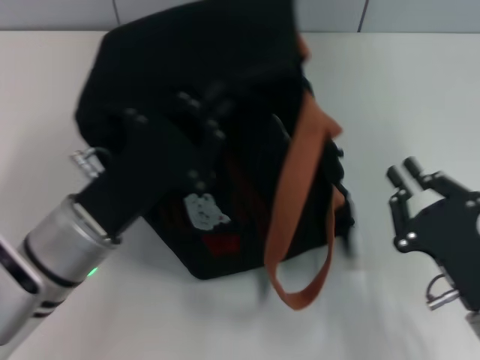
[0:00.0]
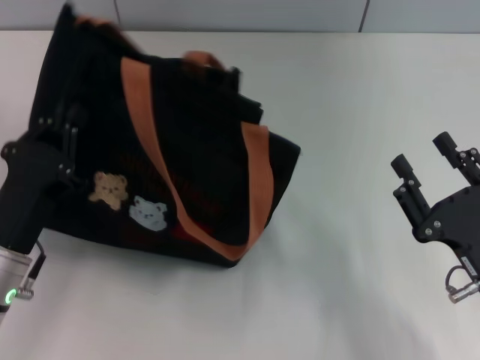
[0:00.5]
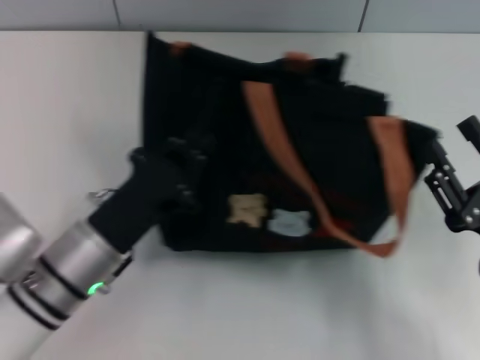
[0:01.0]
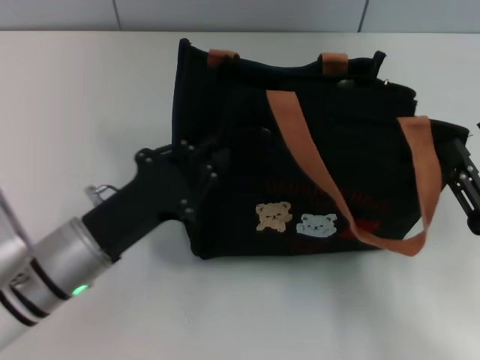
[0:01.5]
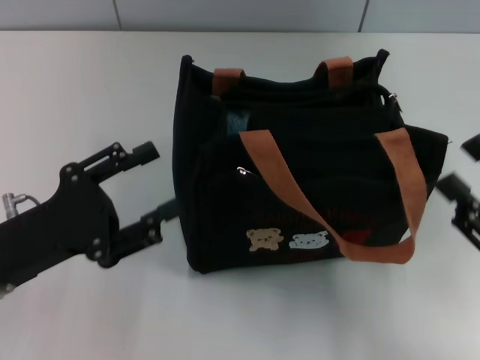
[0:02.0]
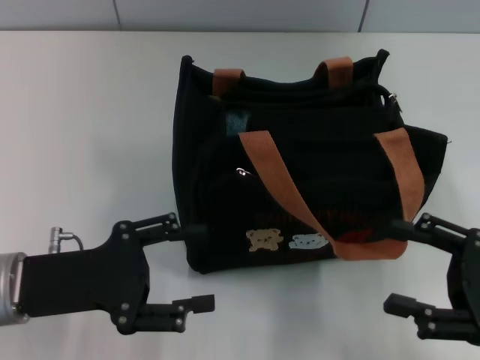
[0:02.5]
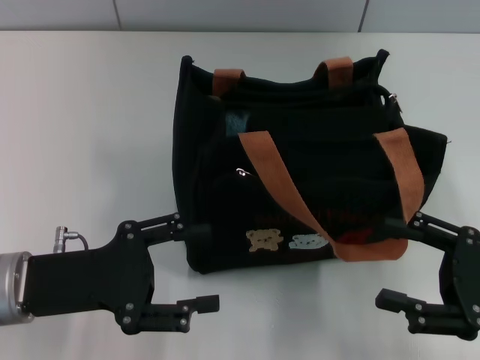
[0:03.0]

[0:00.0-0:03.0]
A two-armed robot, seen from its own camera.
Step, 0:00.0 to 0:01.5: Grab the bag with your left hand.
0:00.0 to 0:01.5: The right gripper moves to the right, roughly 5 cm, and opens up.
0:01.5 to 0:03.0: The left gripper goes some 5 cm to the left, and opens up.

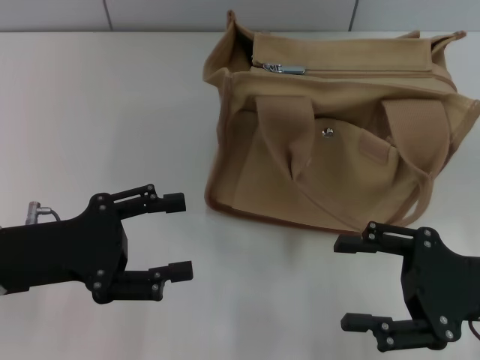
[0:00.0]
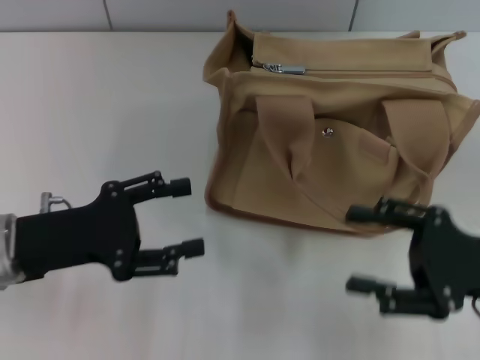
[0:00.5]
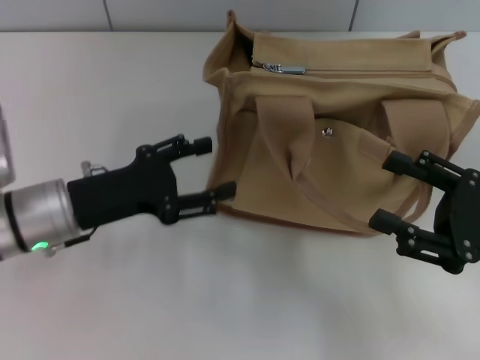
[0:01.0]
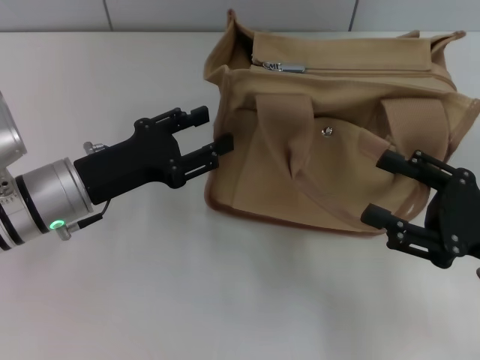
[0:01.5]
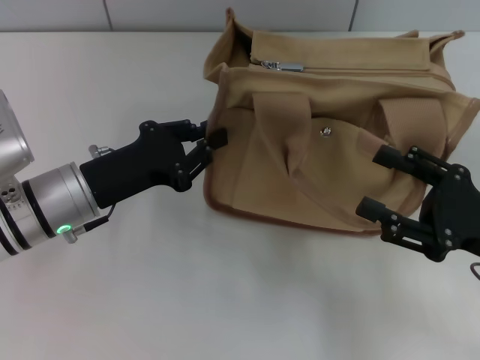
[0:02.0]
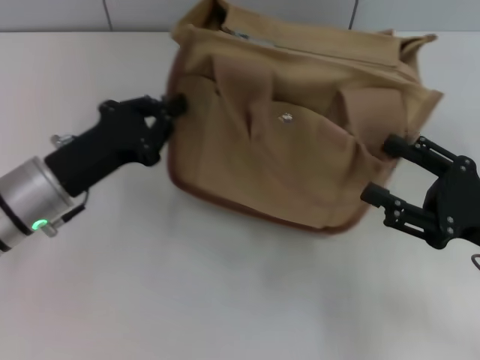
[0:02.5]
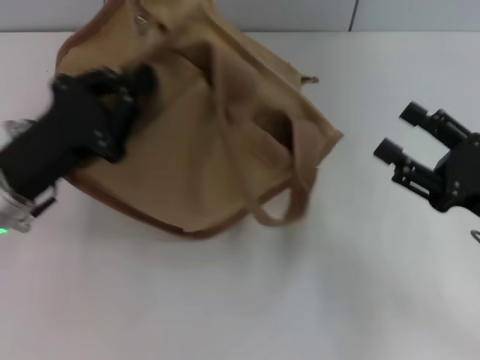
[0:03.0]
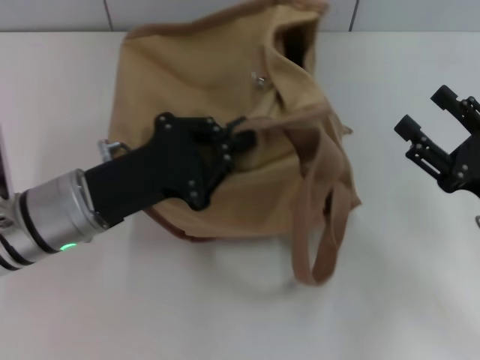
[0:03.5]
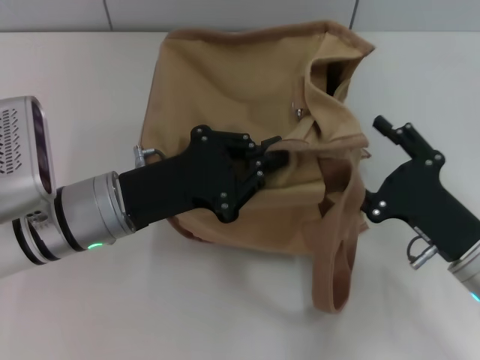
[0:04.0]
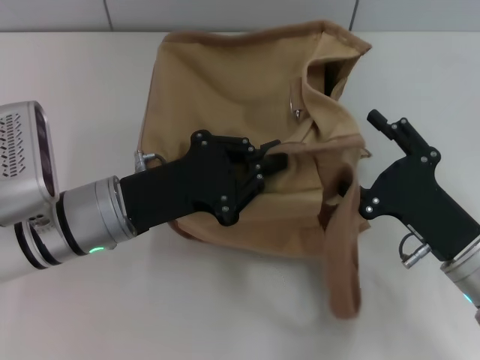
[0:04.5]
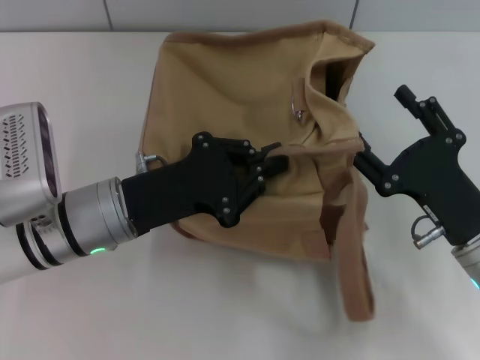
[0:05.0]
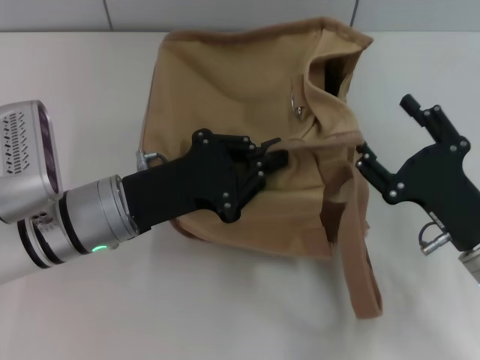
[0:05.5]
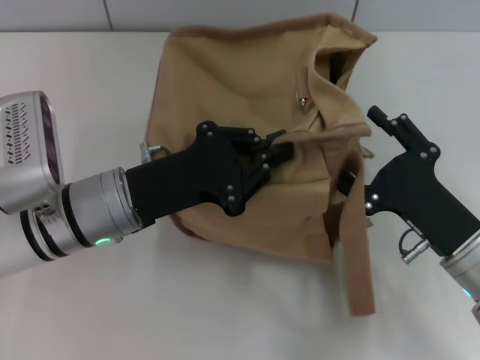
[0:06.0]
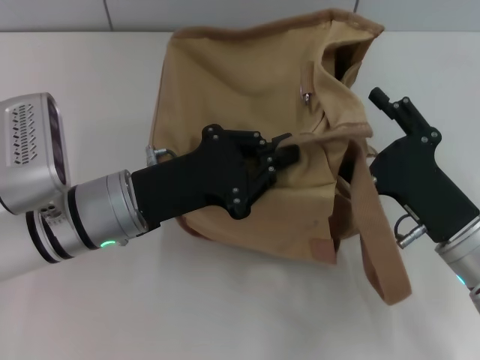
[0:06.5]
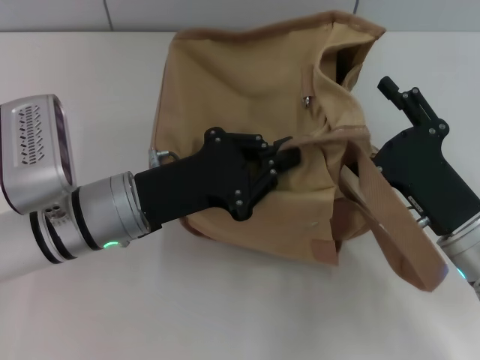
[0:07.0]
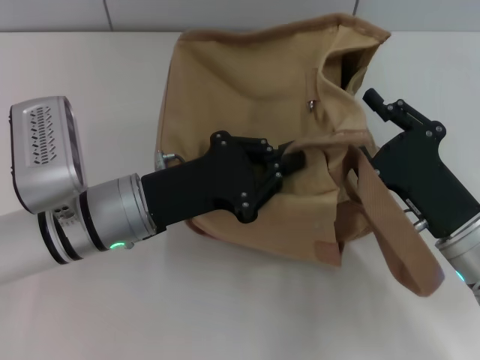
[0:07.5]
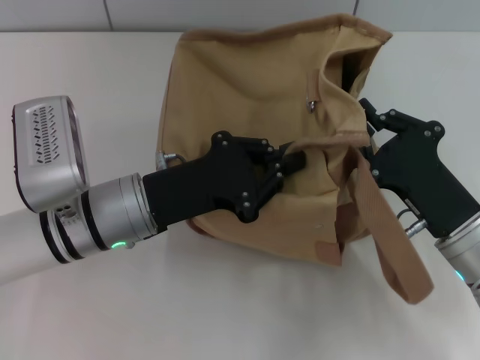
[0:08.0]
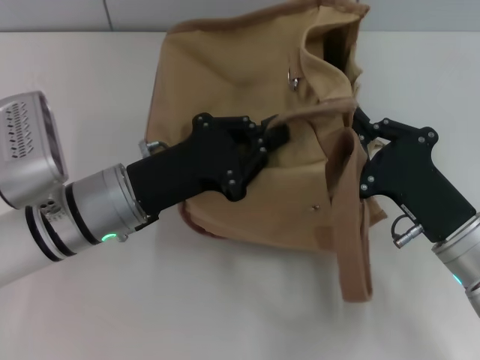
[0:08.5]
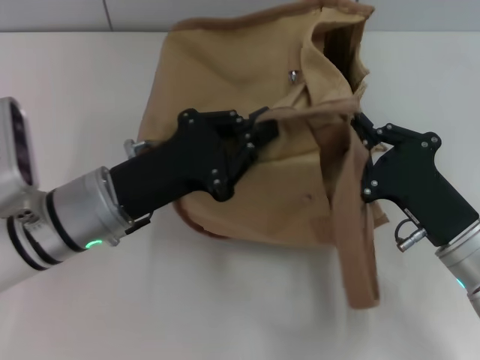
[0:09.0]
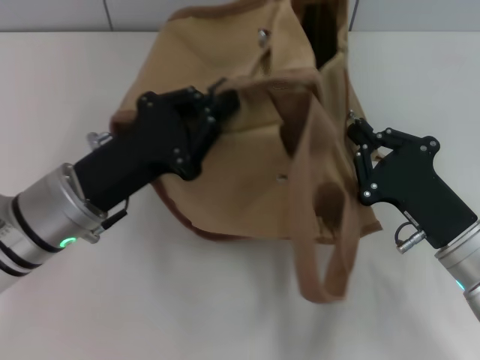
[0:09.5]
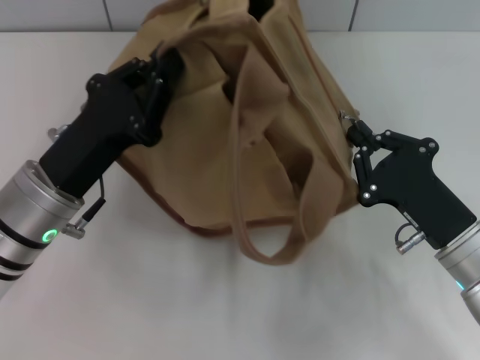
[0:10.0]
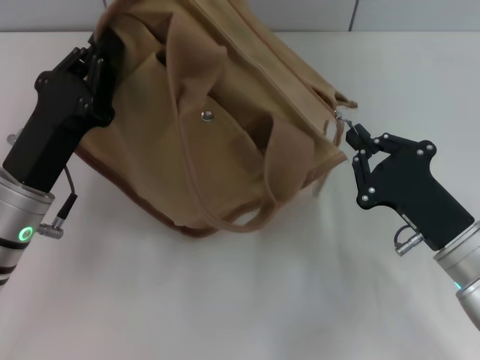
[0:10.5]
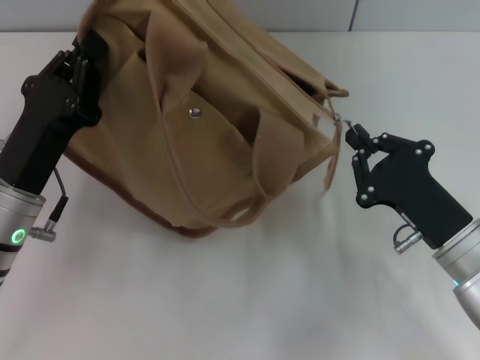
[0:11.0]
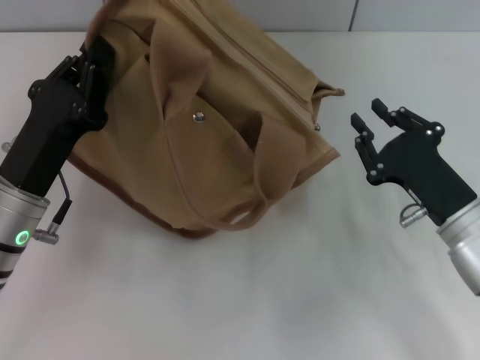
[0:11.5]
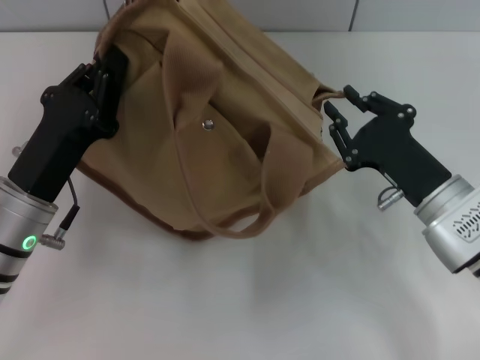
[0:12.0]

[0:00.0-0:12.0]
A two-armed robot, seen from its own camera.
Step, 0:00.0 to 0:11.5: Pull open the zipper with your right hand.
0:00.0 to 0:02.0: The left gripper travels forward and to the right by some 10 cm, and closes its fingers.
0:02.0 to 0:04.0: The left gripper closes up. Meanwhile the right gripper travels to the left by some 5 cm.
0:04.0 to 0:06.0: The grippers move only a little.
0:06.0 to 0:08.0: The right gripper closes up.
0:08.0 to 0:10.0: The left gripper changes place by approximately 5 cm.
0:10.0 to 0:12.0: The right gripper opens up.

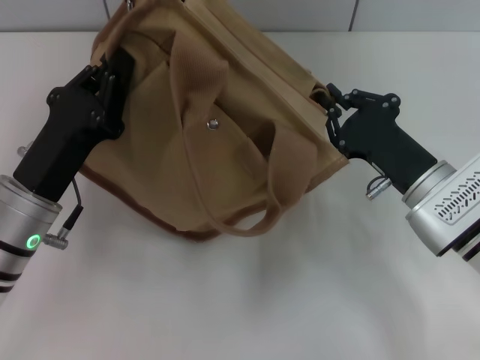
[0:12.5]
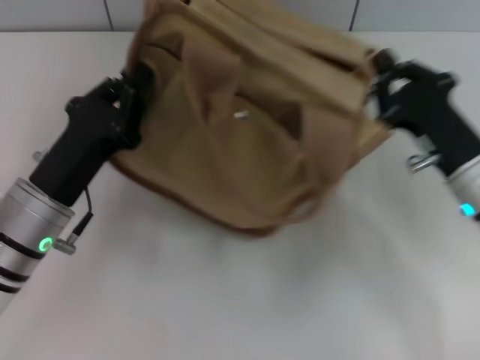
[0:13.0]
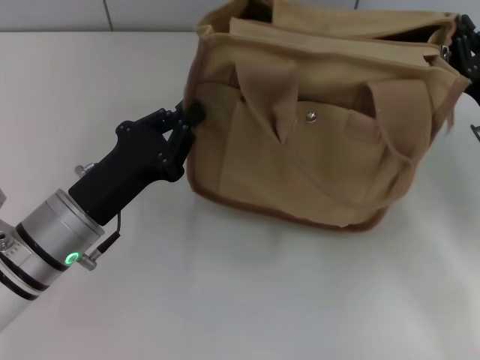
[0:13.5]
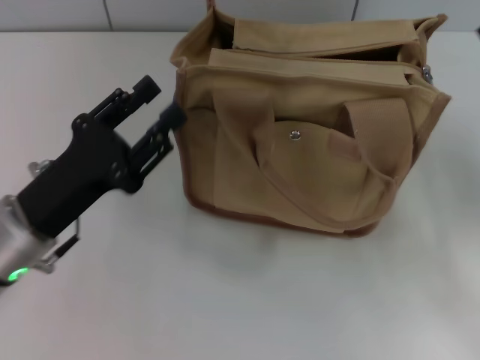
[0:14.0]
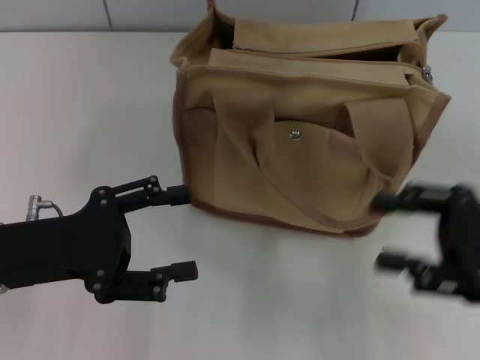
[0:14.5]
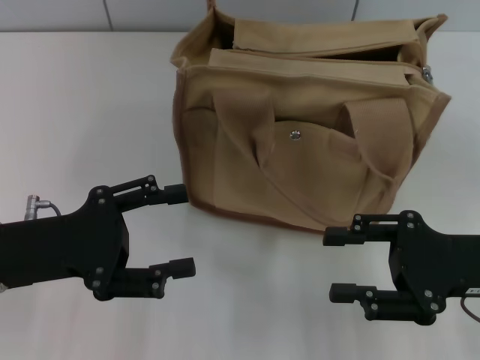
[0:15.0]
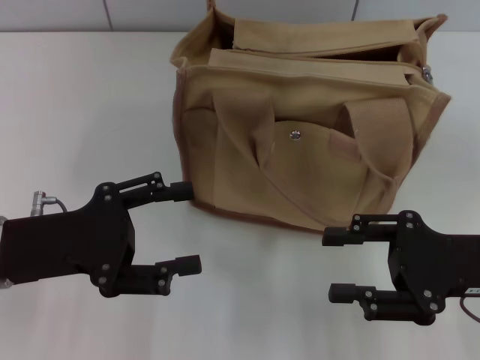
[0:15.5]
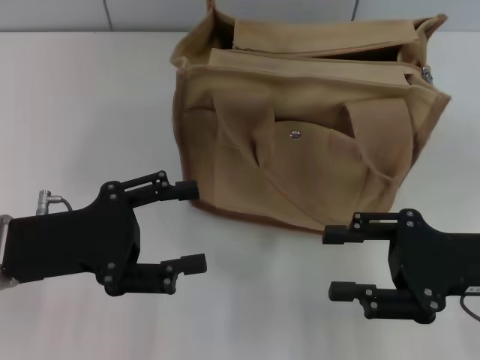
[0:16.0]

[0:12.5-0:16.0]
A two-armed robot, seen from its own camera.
0:12.5 to 0:14.5: The left gripper moves about 5 cm, and opens. The right gripper travels to the right, upward and backward by roughly 10 cm, and opens up.
0:14.5 to 0:16.0: The grippers make only small movements.
